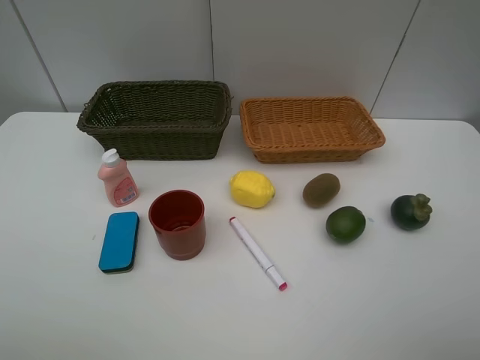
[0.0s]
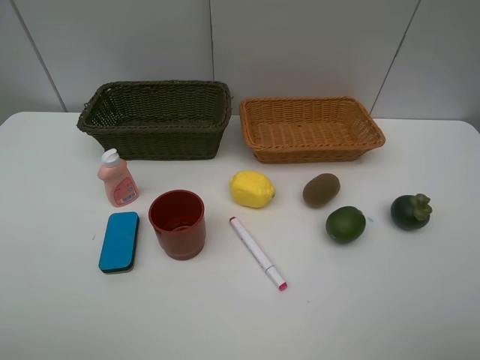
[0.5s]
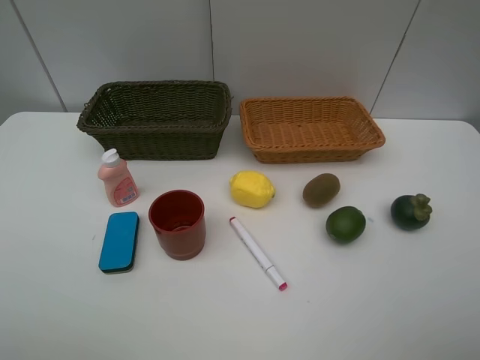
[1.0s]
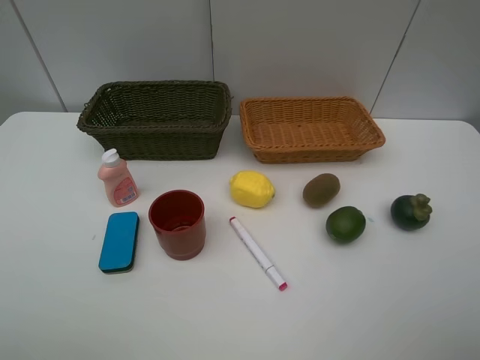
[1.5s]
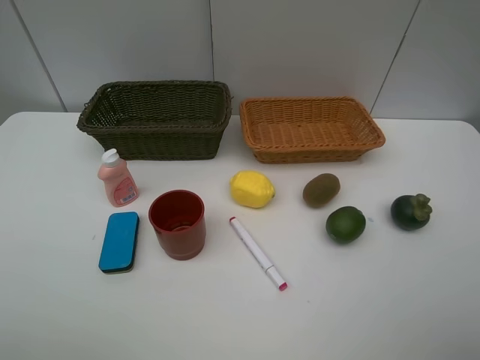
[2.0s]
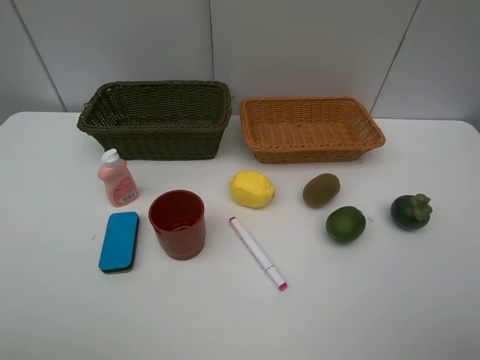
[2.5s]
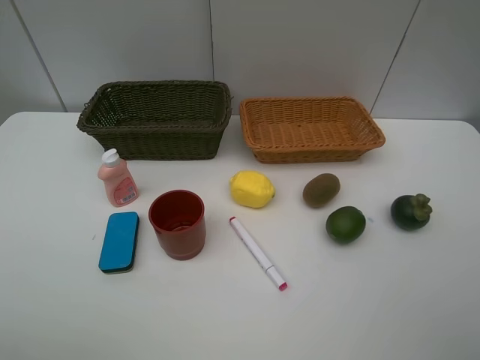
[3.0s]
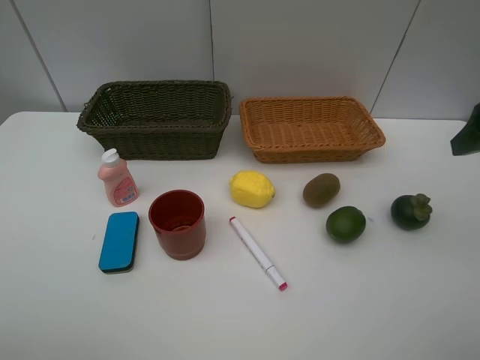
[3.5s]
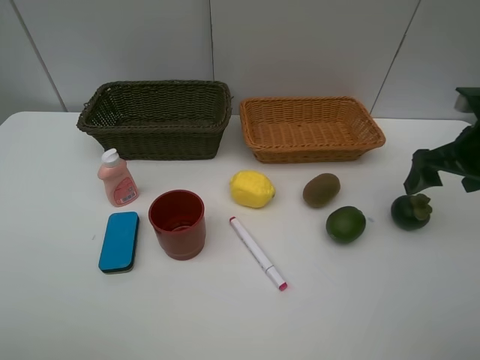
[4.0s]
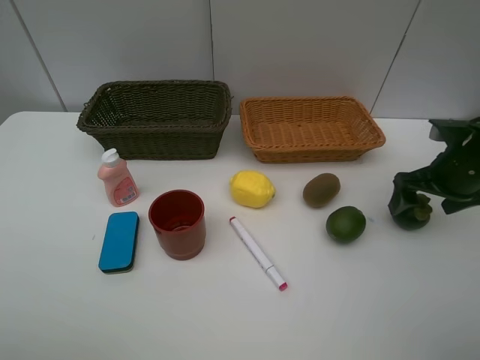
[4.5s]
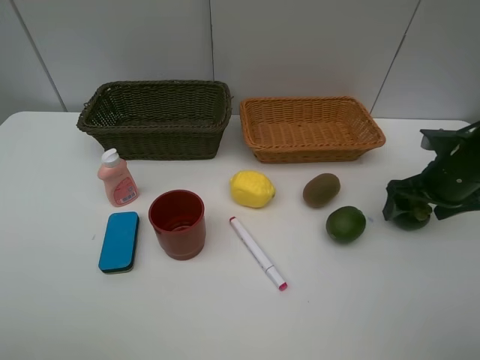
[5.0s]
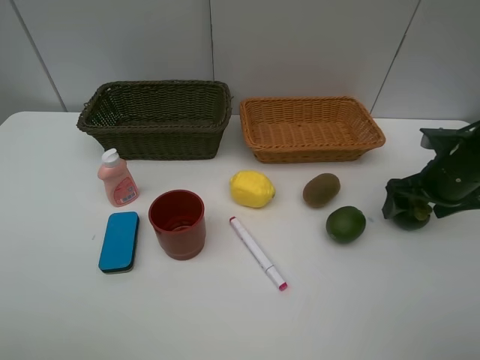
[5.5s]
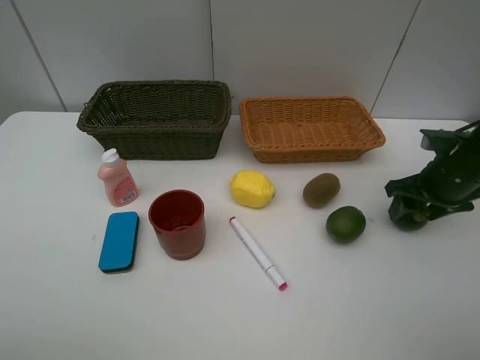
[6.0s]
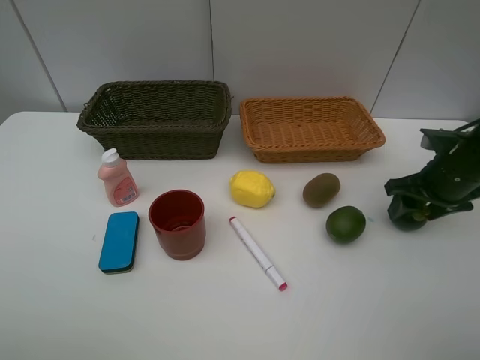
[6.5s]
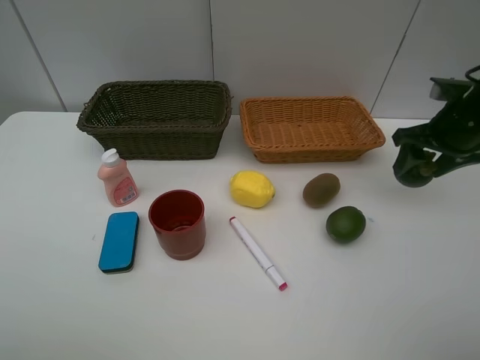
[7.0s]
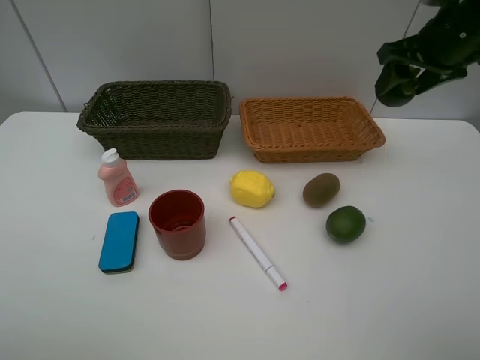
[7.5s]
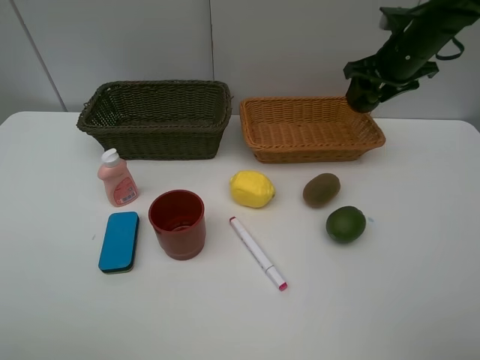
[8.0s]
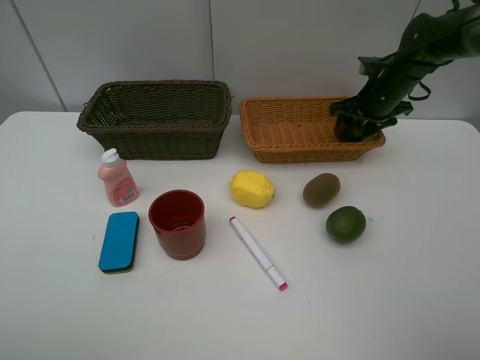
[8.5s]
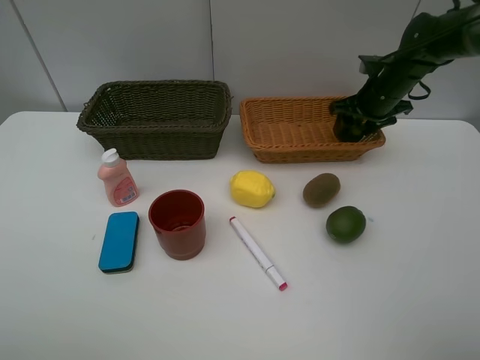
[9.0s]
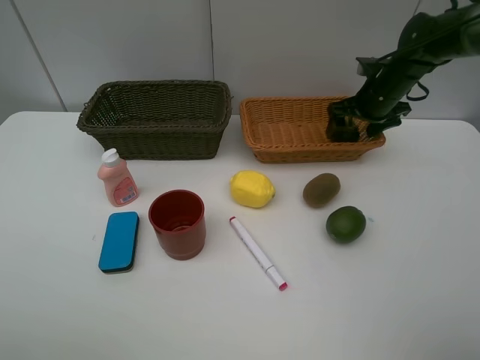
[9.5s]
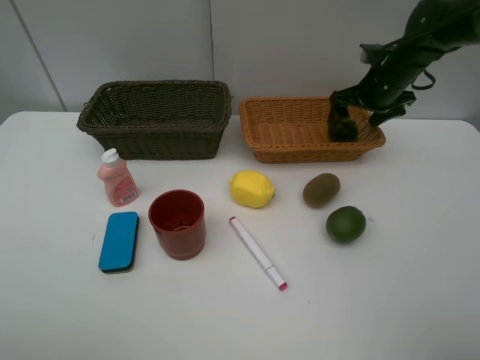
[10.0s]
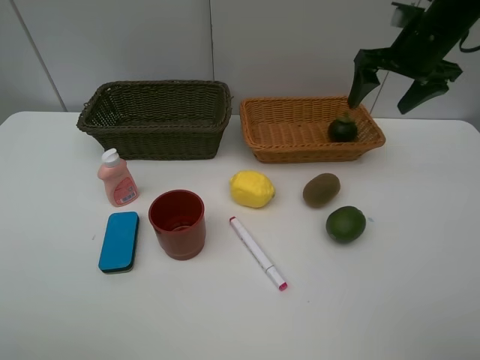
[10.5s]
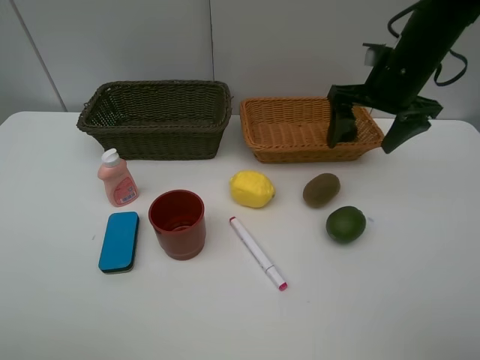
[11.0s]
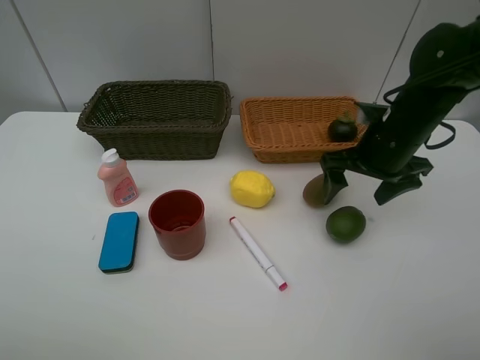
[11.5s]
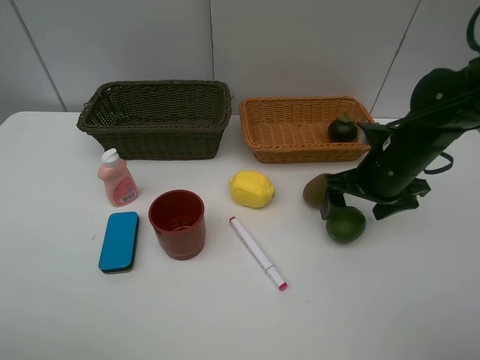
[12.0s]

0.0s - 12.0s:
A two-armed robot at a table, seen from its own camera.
Task of the whole recording: Place multiple objects separately in different baskets.
Step, 0.0s - 6.5s: Pick up the mangosteen with right gripper.
Step, 7.0s - 10.0s: Place the mangosteen in the light basket with right gripper.
0.0s - 2.0s: Both grippers stay about where they are.
2.0s - 4.0s: The right gripper is displaced forward by roughly 30 cm.
4.0s - 6.0s: The right gripper moves downward, about 5 cm, and closes up.
6.0s - 8.0s: The right gripper moves forward and upward, approximately 20 cm.
8.0s - 10.0s: The right gripper opens up.
10.0s - 12.0s: The right gripper heads backward, covering about 15 cm.

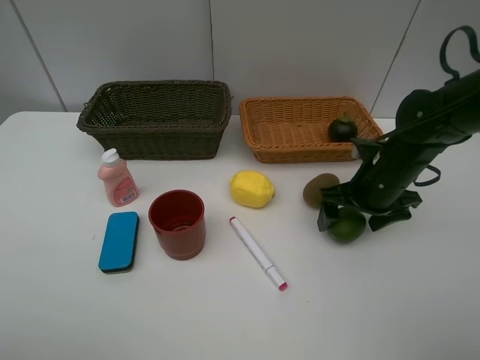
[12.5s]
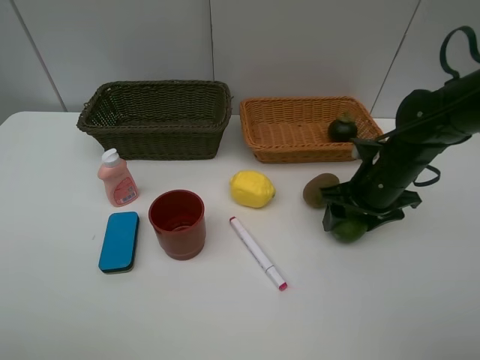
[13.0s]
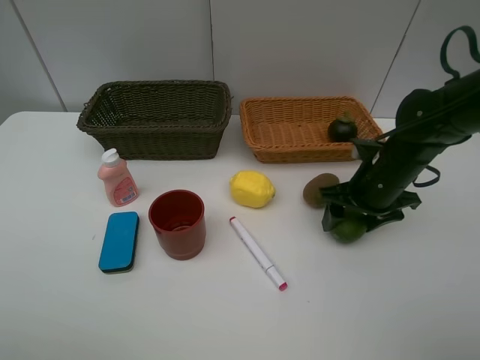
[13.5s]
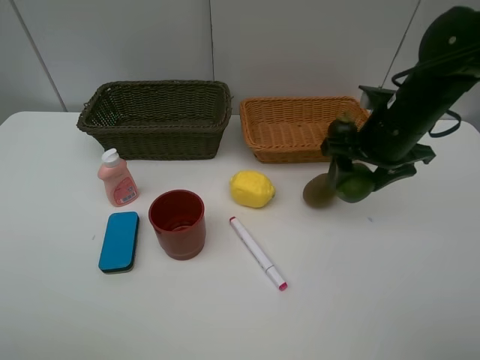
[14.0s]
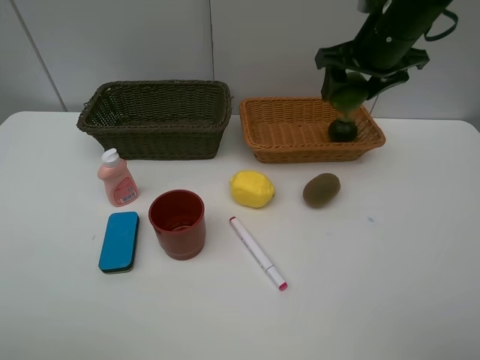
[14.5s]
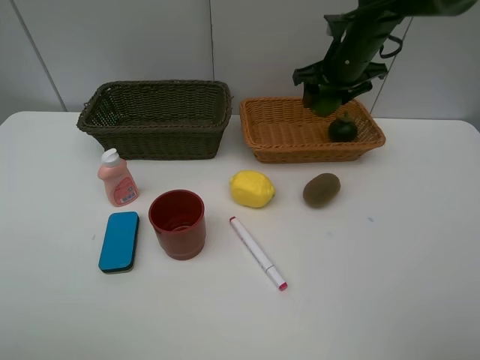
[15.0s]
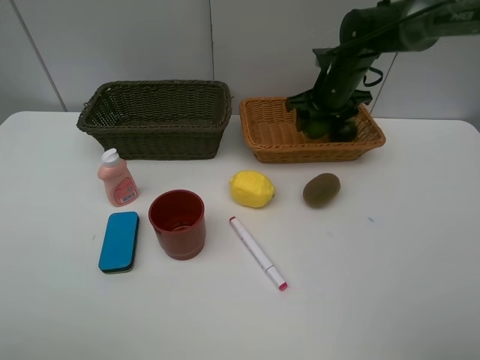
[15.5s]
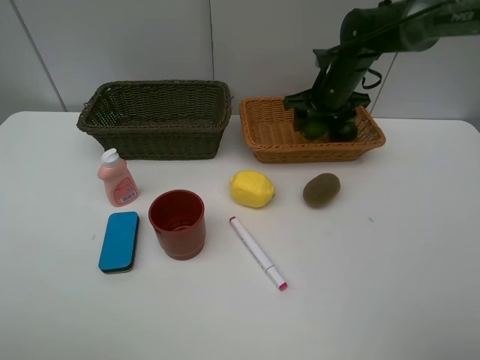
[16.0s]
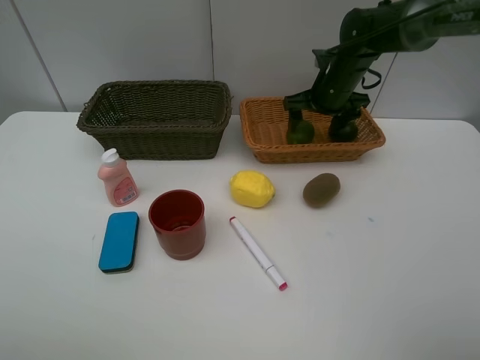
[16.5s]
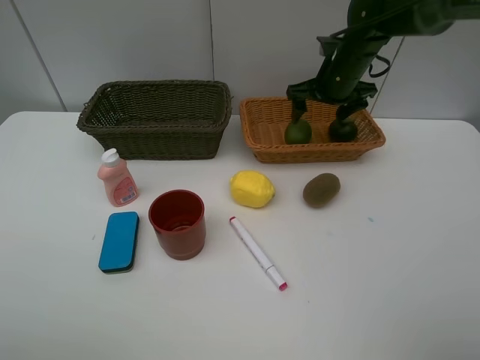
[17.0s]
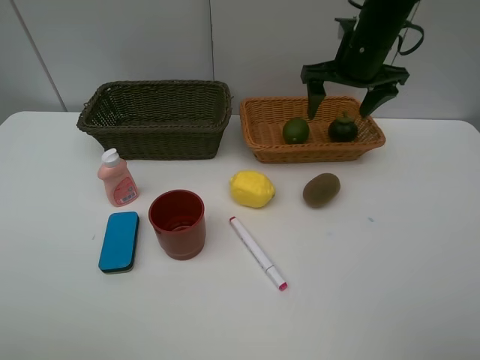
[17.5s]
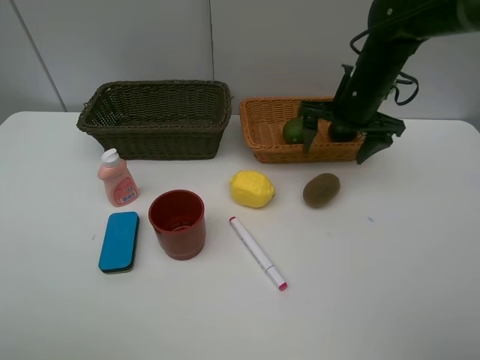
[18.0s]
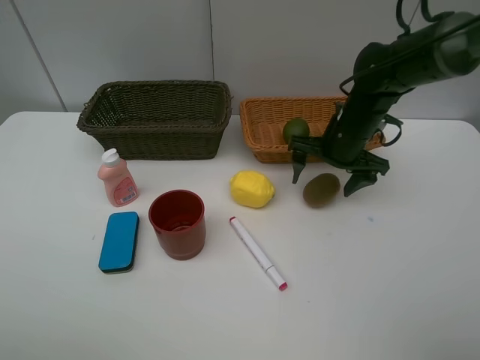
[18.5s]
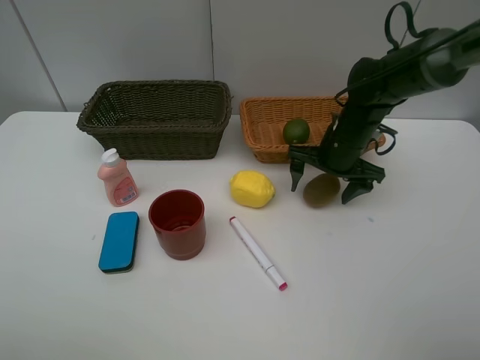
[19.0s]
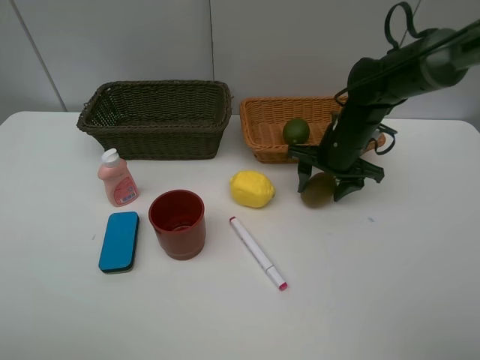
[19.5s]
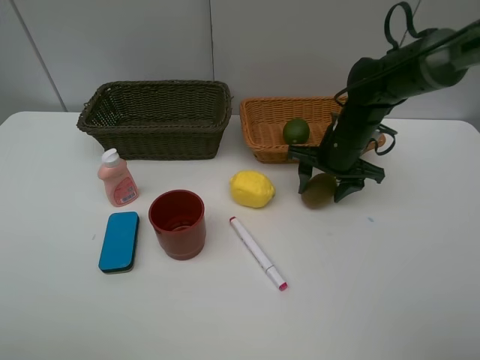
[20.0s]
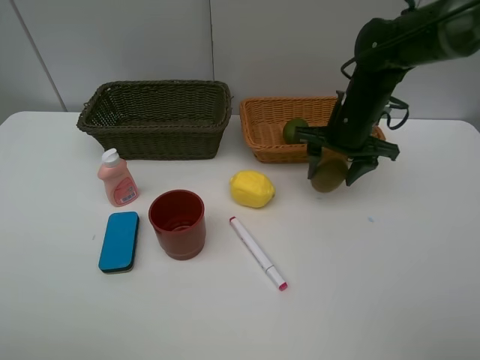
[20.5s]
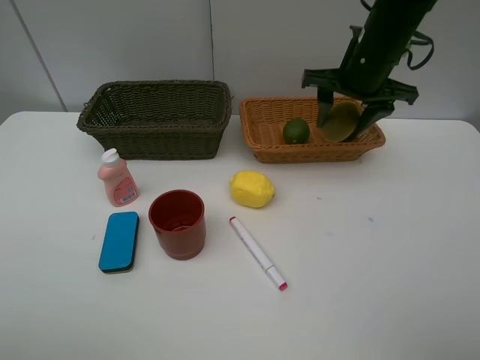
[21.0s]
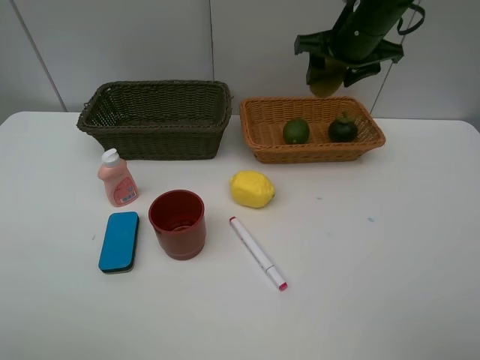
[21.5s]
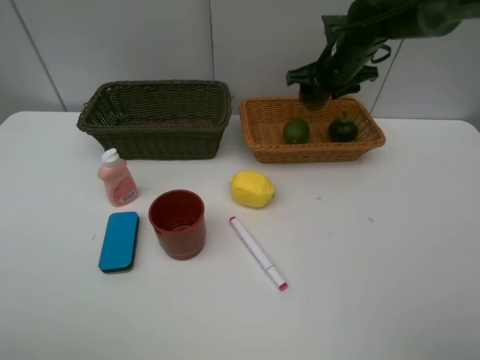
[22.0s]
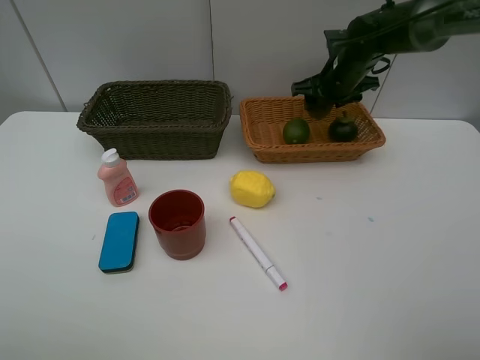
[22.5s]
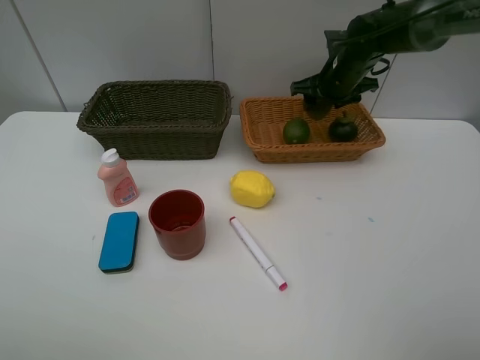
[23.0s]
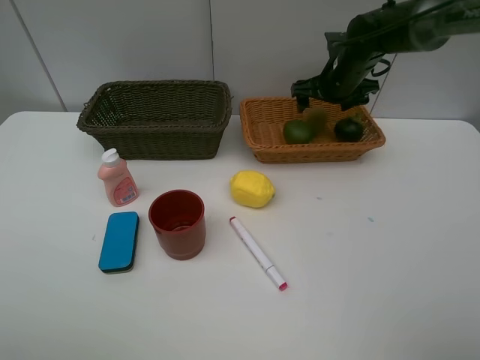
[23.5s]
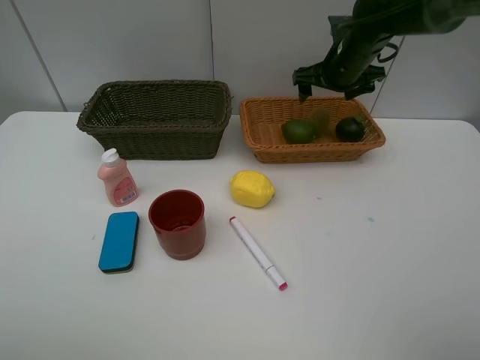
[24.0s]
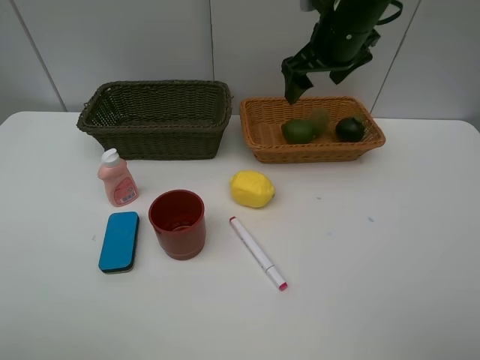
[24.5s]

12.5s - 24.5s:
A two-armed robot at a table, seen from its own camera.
Task of the whole recording: Place multiple objects separately in different baskets.
Step, 14.0s - 17.0s: Place the lime in the light basket with right gripper.
Step, 17.5s - 20.0s: Pick up kiwi with right gripper.
Step, 20.5s - 23.5s: Place the kiwi in the light basket with right gripper.
12.5s - 14.5s: The right gripper heads upward and forward, covering approximately 20 cm.
14.5s - 16.5s: The right gripper goes some 15 cm downward and forward.
16.5s - 18.5s: The right gripper is displaced backward by some 10 cm, and travels upward and back again, roughly 10 cm each way.
18.5s - 20.5s: The right gripper closes up.
20.5s - 22.5s: The right gripper travels forward by roughly 10 cm.
22.5s - 24.5s: The right gripper heads upward, backward and to the left, covering some 15 cm, and opens.

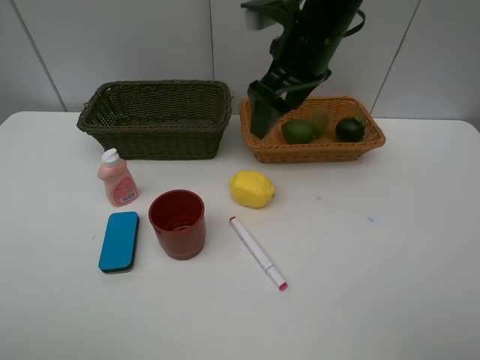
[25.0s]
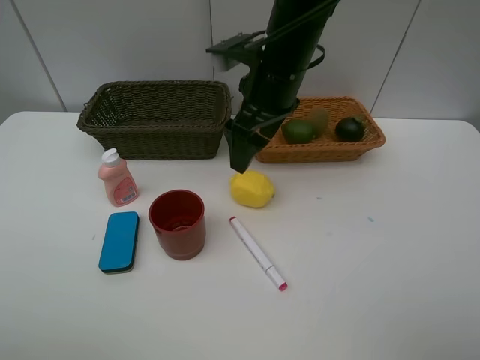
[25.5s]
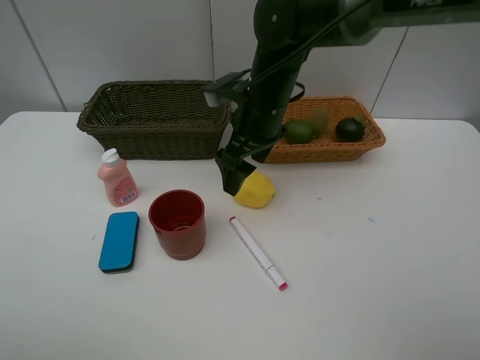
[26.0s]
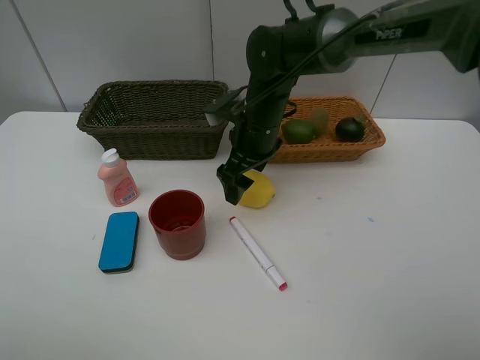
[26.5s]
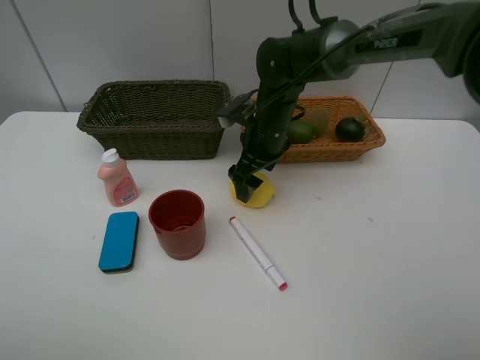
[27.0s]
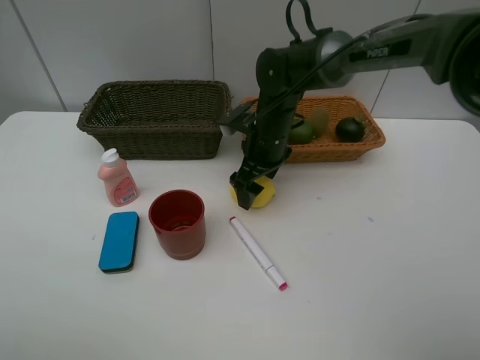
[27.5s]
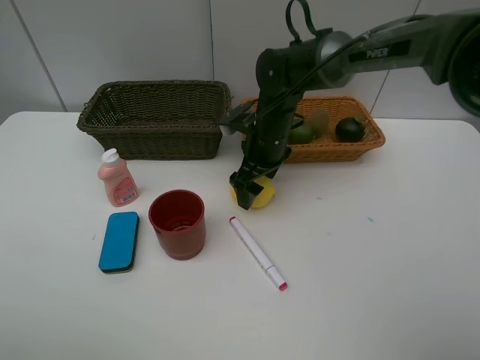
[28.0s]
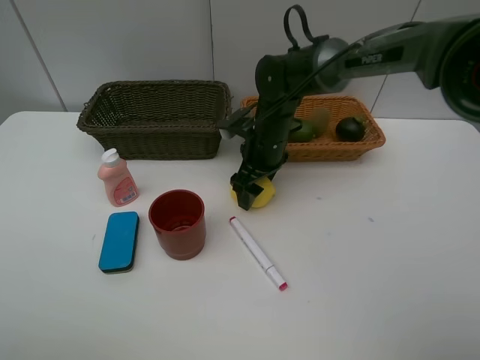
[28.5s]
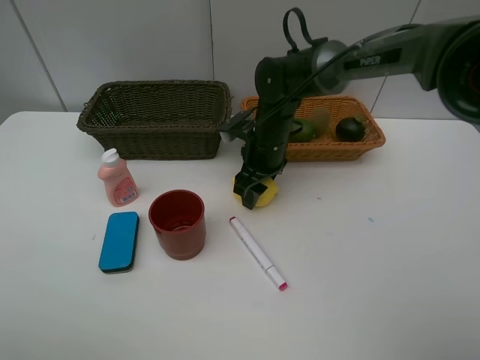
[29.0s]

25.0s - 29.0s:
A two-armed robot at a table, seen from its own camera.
Task of the whole recording: Place multiple objects separately in different baskets.
25.0s - 27.0s: The right gripper heads downward, covering roughly 15 cm.
27.0s - 29.0s: The right gripper closes up.
